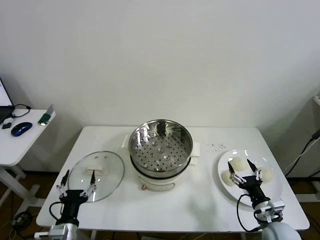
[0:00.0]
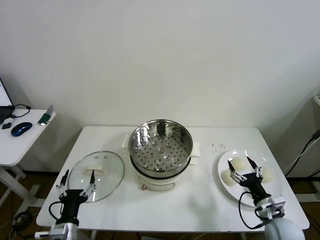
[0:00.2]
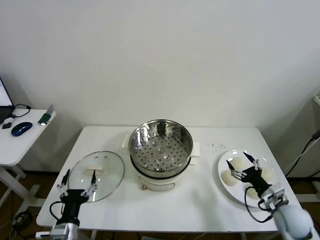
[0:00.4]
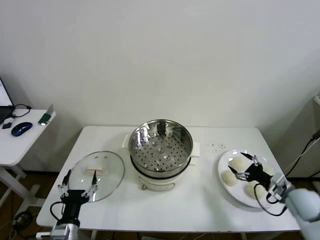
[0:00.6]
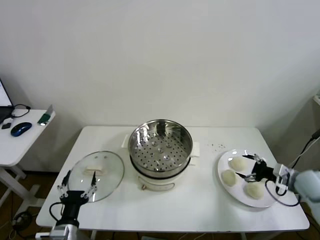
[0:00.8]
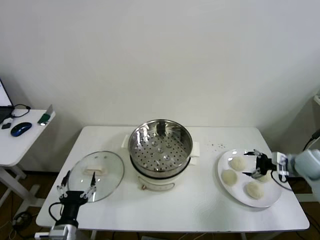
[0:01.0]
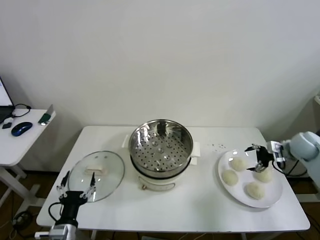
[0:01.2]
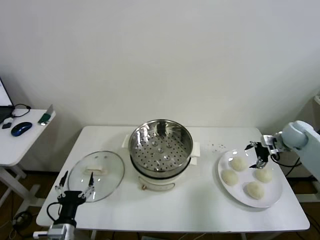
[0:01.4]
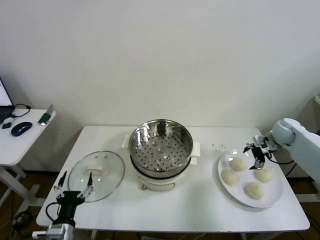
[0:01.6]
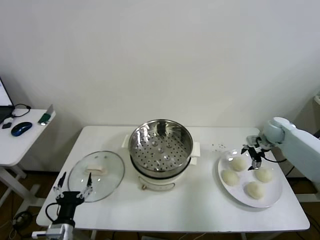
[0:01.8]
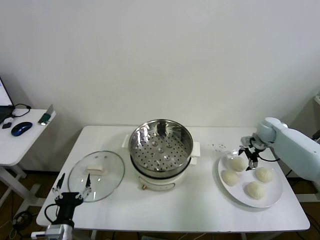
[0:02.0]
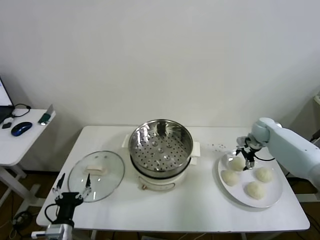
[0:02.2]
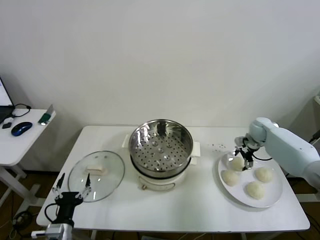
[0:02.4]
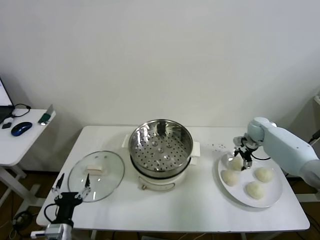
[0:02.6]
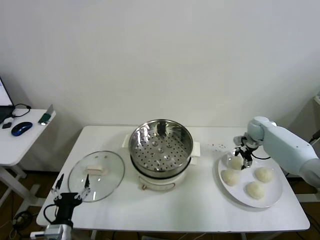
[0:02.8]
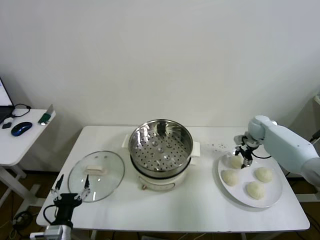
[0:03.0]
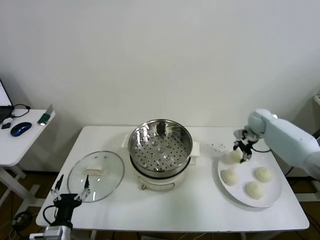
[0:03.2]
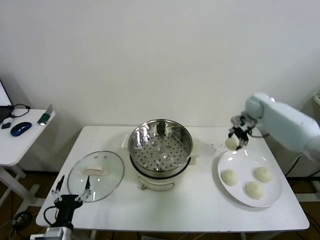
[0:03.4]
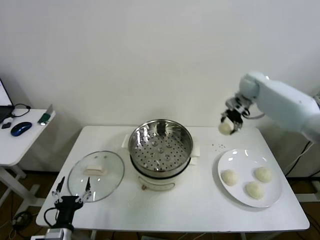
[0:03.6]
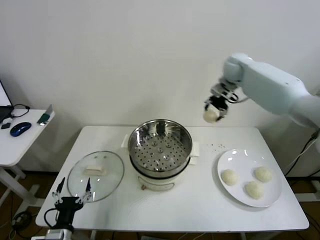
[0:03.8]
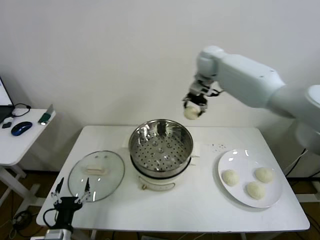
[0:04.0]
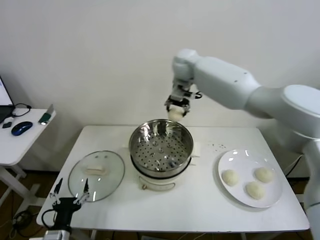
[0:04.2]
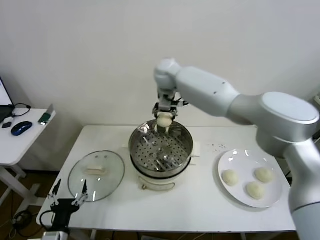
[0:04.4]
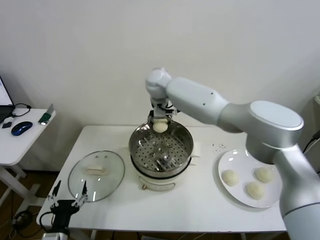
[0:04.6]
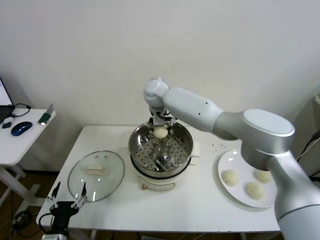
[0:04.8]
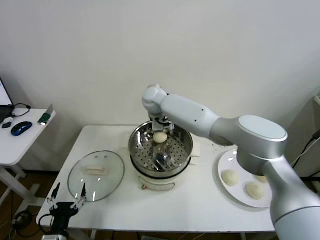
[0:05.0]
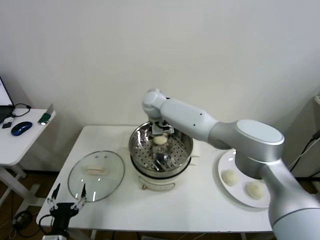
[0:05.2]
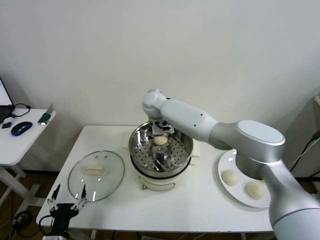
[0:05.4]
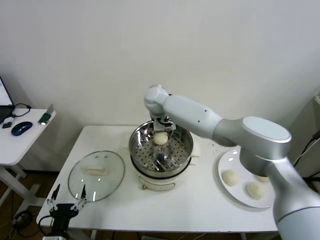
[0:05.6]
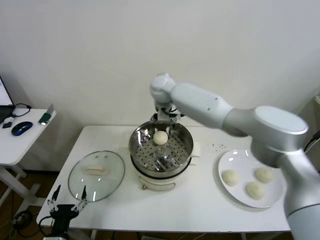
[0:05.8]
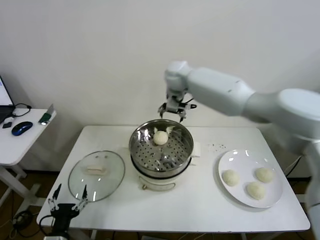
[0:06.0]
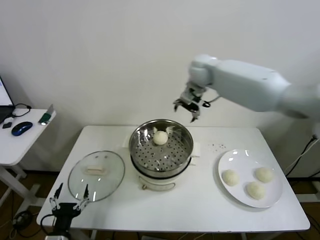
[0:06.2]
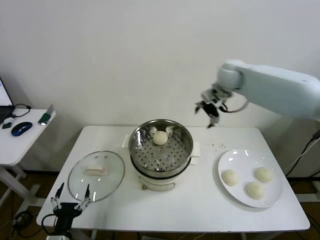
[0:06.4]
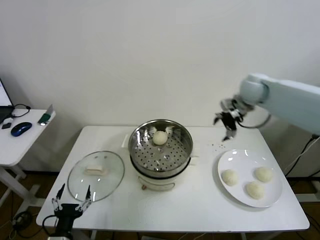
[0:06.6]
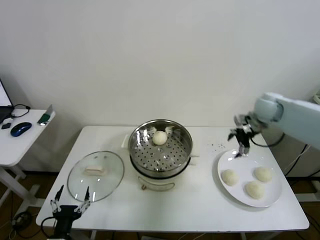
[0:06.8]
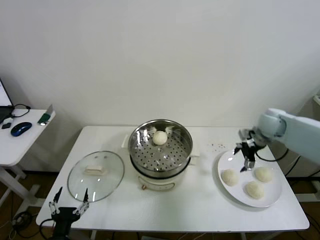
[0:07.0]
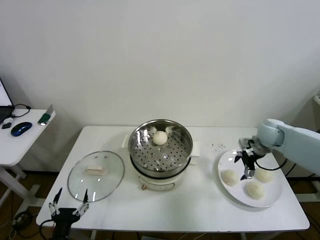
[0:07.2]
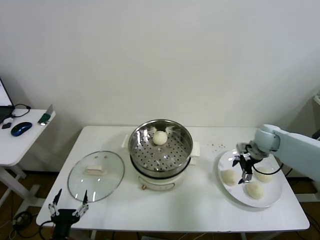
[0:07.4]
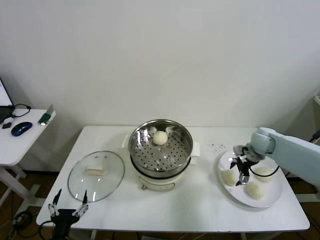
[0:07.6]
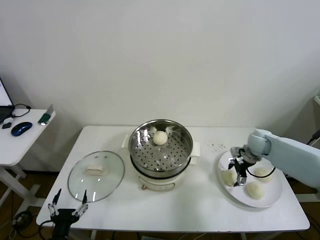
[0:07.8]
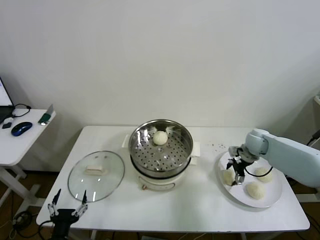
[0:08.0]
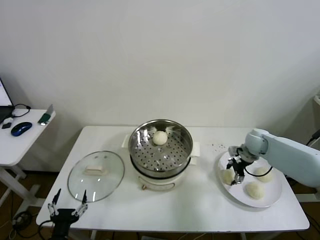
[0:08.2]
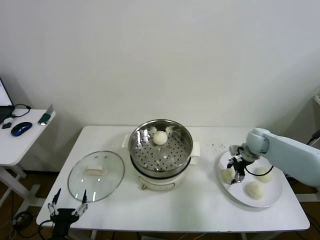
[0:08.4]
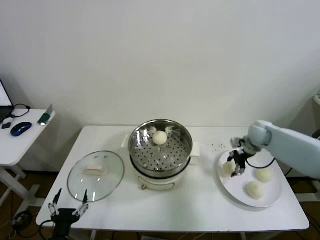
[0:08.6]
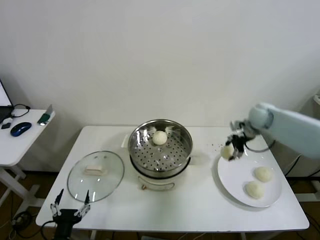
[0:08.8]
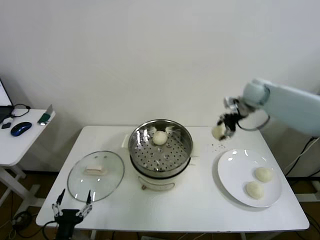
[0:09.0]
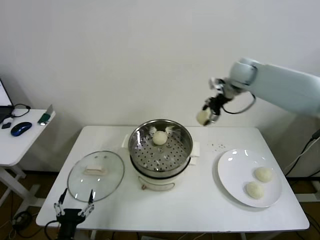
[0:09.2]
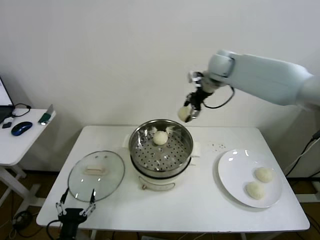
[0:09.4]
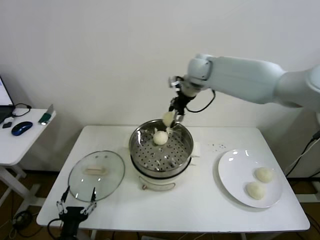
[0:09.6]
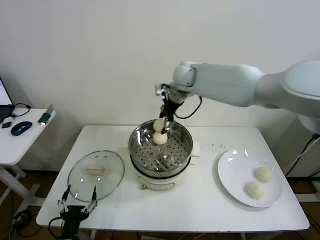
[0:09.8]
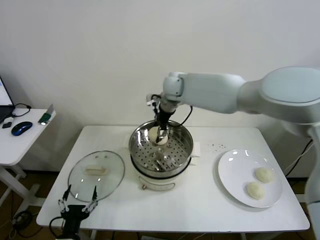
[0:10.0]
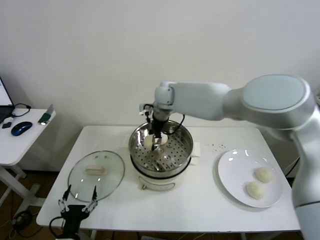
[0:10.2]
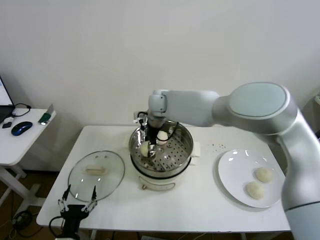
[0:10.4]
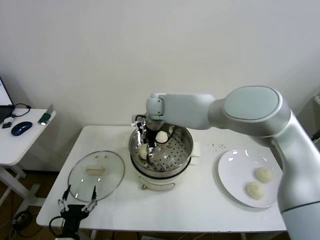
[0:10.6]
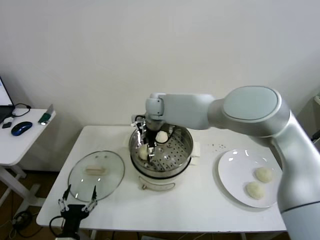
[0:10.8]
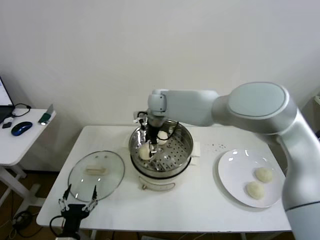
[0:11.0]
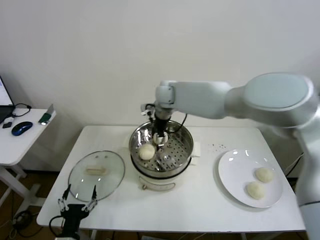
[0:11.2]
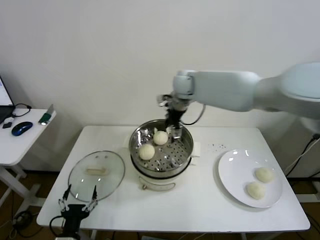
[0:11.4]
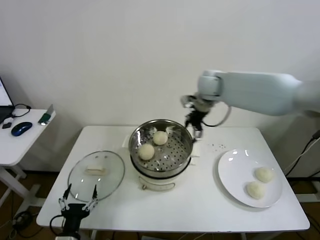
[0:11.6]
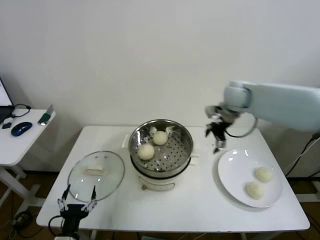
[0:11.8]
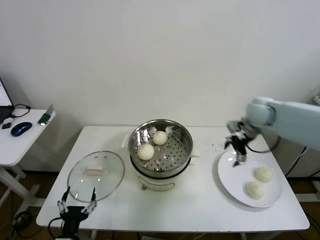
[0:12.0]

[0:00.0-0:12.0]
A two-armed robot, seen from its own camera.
Step, 0.0 to 2.8 s: Grasp the baozi in the plate with right gripper.
Step, 3.0 to 5.2 s: Place the baozi on the steamer with right gripper.
Step, 5.4 to 8.2 s: Grasp the baozi in the plate with right gripper.
Step, 8.4 to 10.6 s: Place the baozi on the steamer with right gripper.
1.6 to 3.0 s: The right gripper shifts roughly 5 cm forward, and closes.
3.0 to 4.4 s: The right gripper travels to the left and upward by roughly 50 cm.
4.4 to 6.0 s: The right gripper shifts about 10 cm to the right, and opens.
6.0 to 7.6 s: The right gripper is displaced to the right and downward by some 35 cm.
7.6 to 9.0 s: The right gripper goes approximately 25 cm upward and forward, and closes.
9.0 to 10.4 s: The right gripper travels to the left by roughly 30 cm.
10.4 to 12.0 s: The right gripper travels to the right by approximately 35 cm, and opens up.

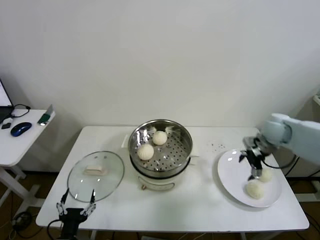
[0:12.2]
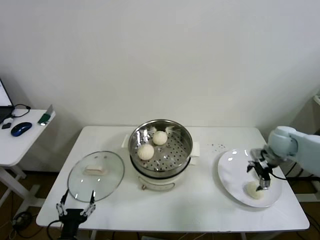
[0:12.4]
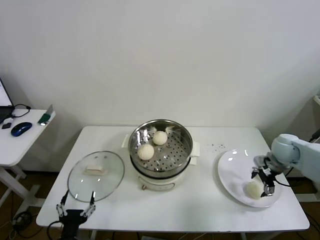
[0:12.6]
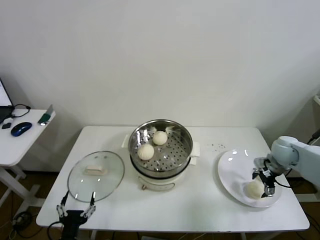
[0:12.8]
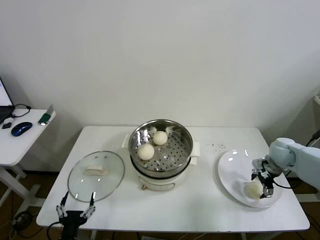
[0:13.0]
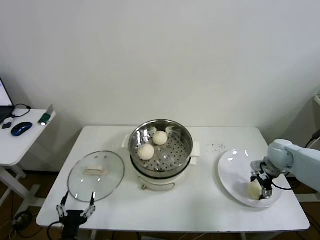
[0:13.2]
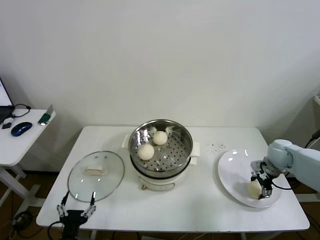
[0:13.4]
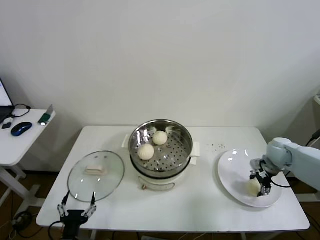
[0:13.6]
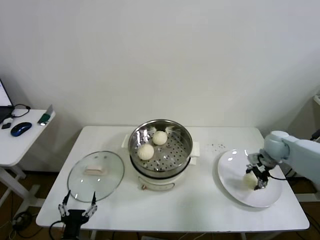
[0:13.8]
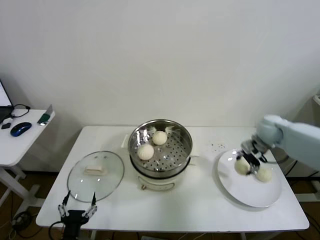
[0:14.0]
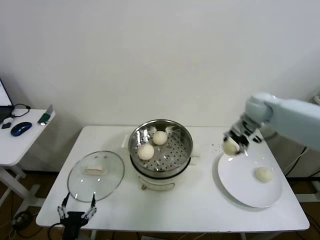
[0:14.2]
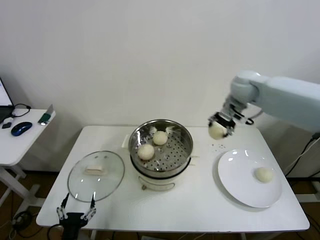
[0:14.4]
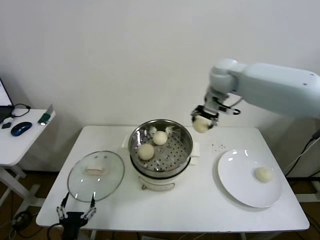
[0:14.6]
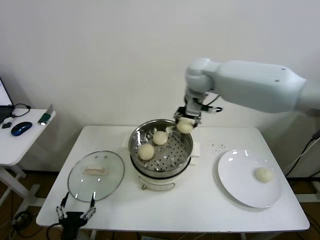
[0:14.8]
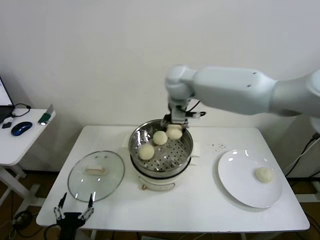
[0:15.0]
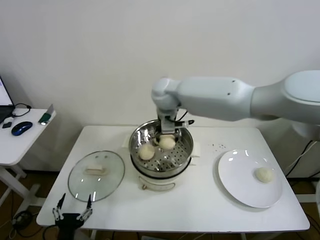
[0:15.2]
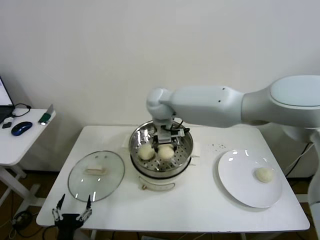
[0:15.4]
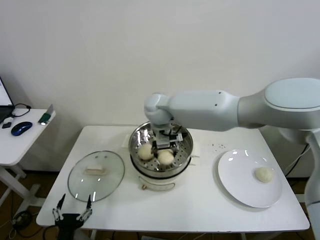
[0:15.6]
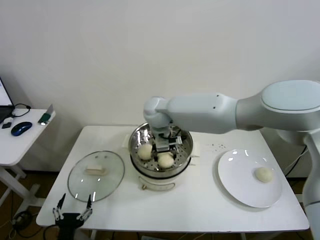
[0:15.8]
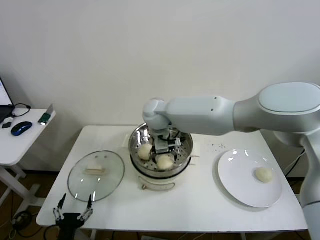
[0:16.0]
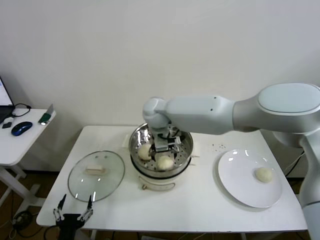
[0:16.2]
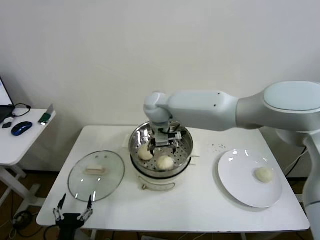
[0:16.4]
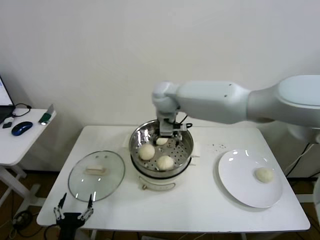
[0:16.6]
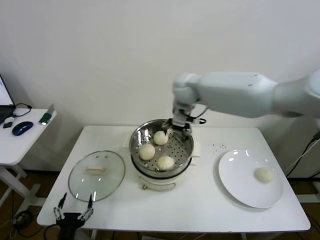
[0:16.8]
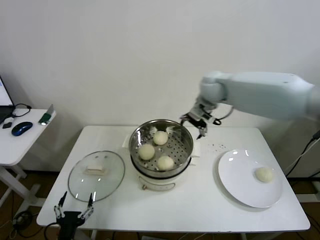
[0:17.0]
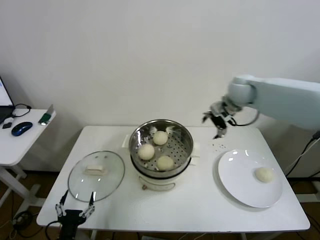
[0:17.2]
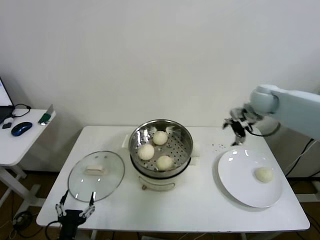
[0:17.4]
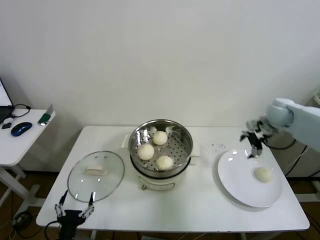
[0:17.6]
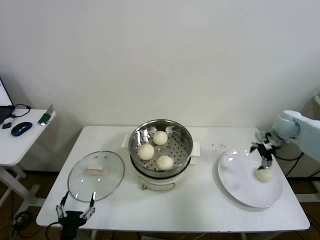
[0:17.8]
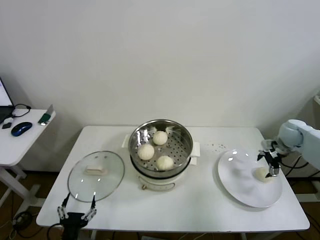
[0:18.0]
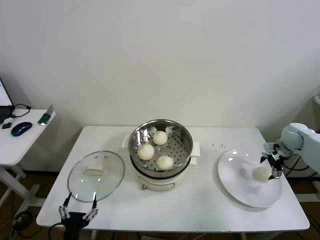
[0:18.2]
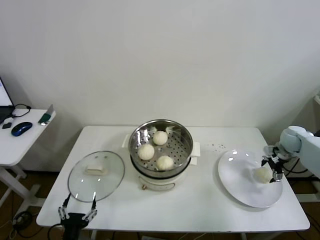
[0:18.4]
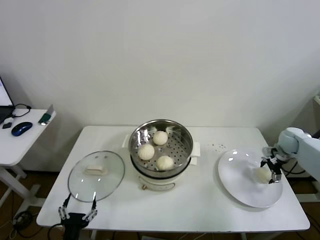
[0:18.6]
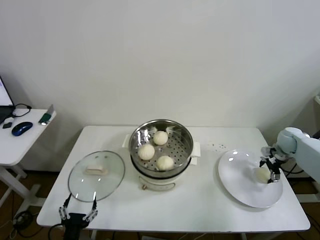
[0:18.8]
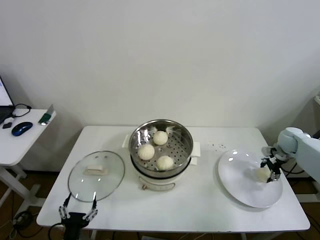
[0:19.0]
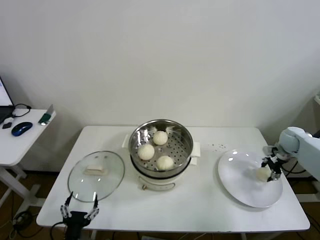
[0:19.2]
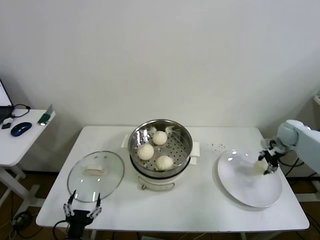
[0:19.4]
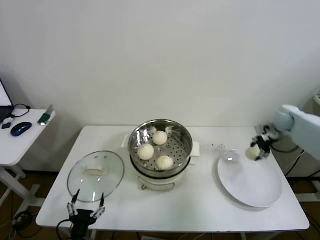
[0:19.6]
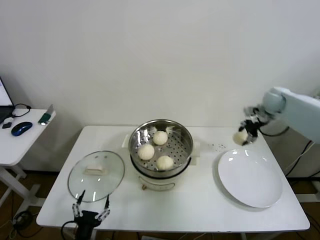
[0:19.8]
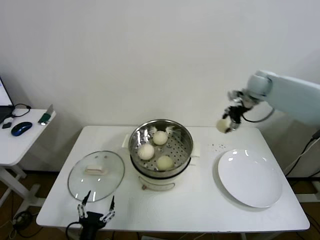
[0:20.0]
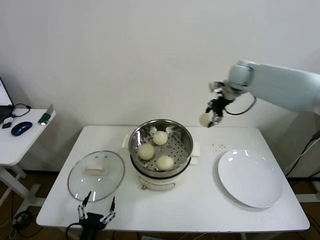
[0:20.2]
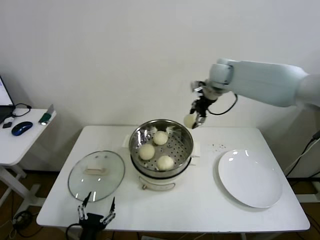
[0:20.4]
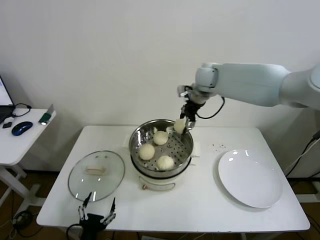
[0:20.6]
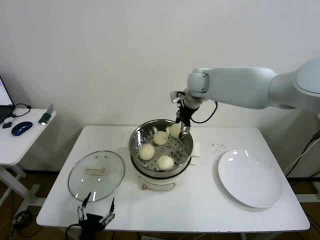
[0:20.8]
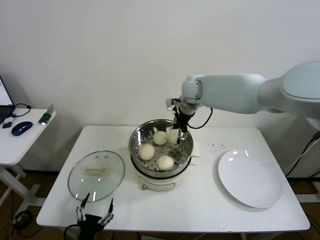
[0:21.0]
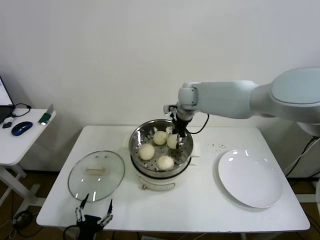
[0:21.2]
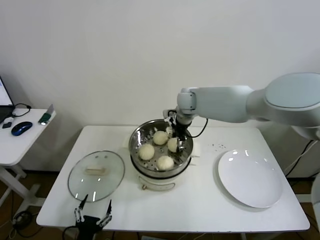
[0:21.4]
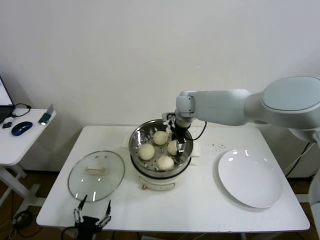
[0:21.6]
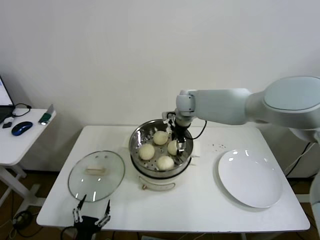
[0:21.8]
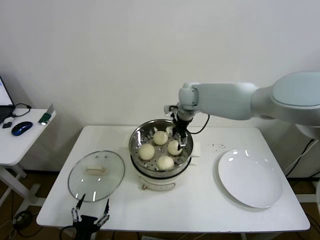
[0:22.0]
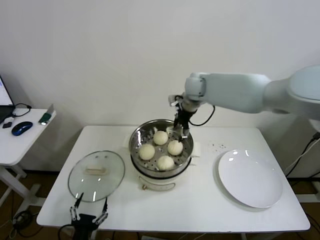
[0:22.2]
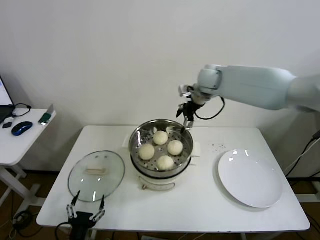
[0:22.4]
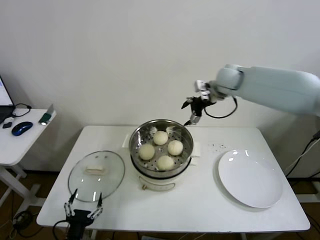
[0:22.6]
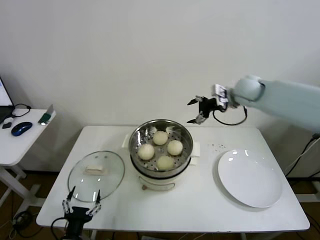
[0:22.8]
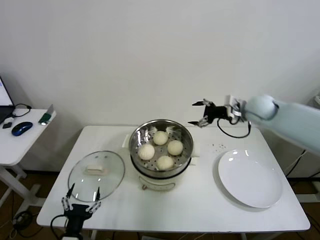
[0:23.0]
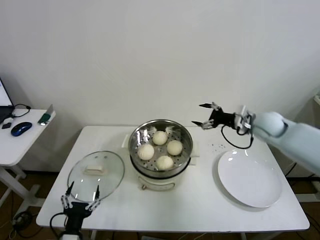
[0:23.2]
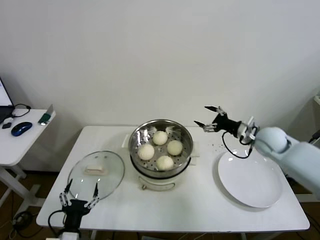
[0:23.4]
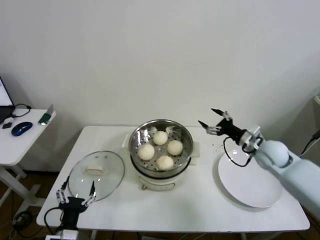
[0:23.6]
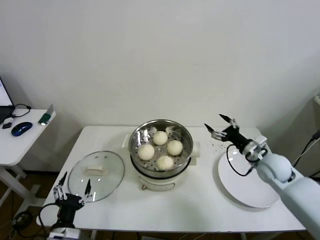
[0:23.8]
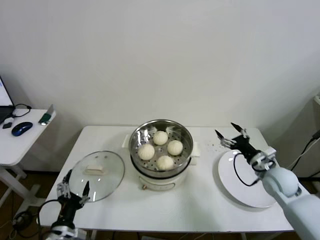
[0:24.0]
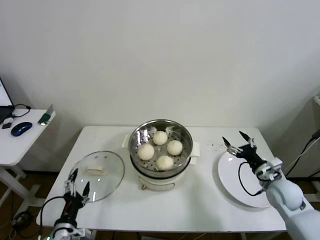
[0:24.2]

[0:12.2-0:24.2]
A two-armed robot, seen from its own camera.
Step, 13.4 to 16.0 s: Place the baozi on the steamer with right gripper.
Step, 16.2 to 19.0 s: Grasp the baozi in the plate with right gripper.
Step, 19.2 to 21.4 s: Place the baozi on the steamer with right gripper.
12.2 to 13.8 s: The right gripper closes.
13.8 to 15.2 s: The right gripper shifts roughly 40 cm to the left and upward.
15.2 to 16.6 s: The right gripper opens.
16.6 to 18.2 s: The right gripper goes some 50 cm to the right.
18.2 to 19.8 s: The right gripper moves upward, to the left and forward, approximately 20 cm, and closes up.
19.8 to 21.2 s: The right gripper moves to the left, about 30 cm.
21.2 to 22.6 s: The right gripper goes about 15 cm to the right and upward, and opens its fingers.
22.6 to 24.2 s: The left gripper moves some 5 cm, while the right gripper travels downward, backward and to the right by approximately 40 cm.
